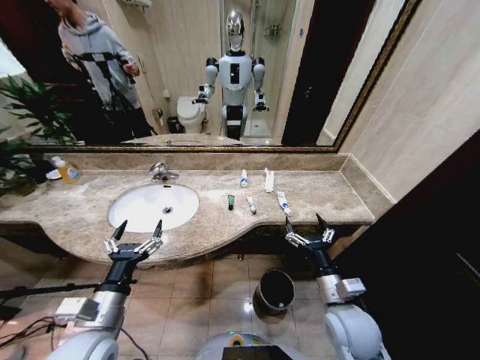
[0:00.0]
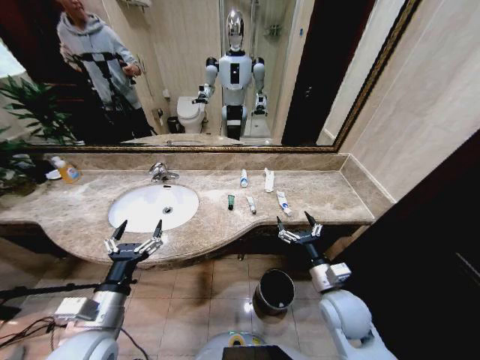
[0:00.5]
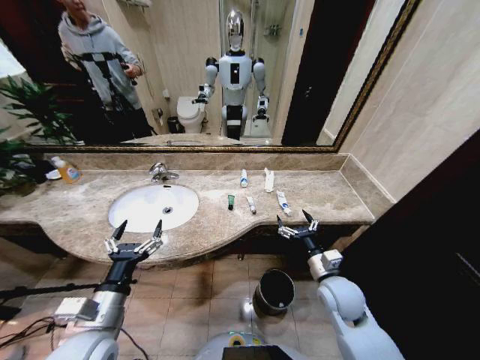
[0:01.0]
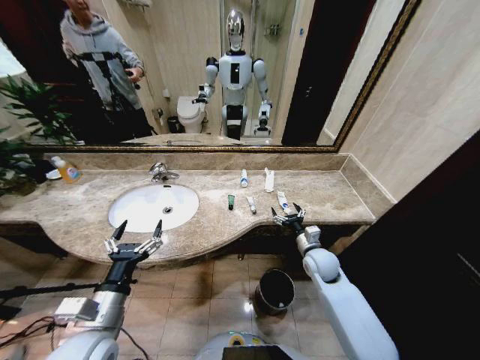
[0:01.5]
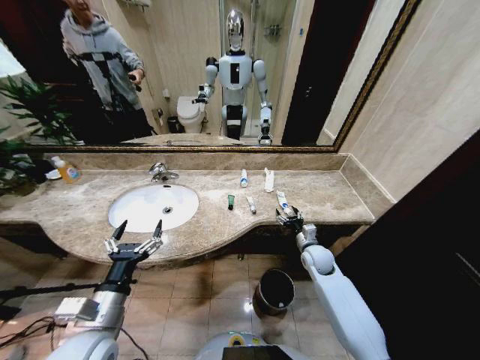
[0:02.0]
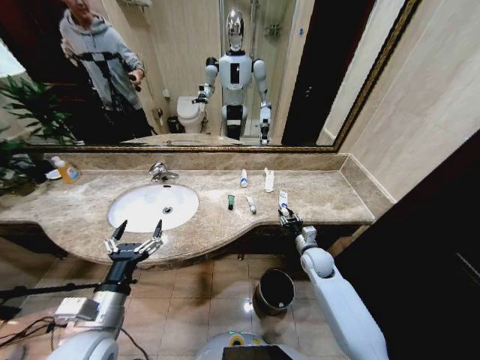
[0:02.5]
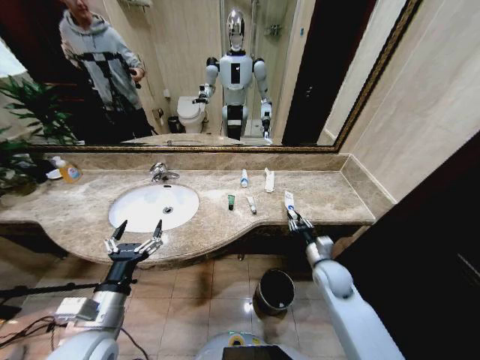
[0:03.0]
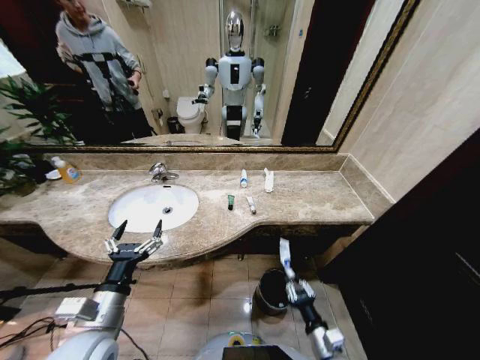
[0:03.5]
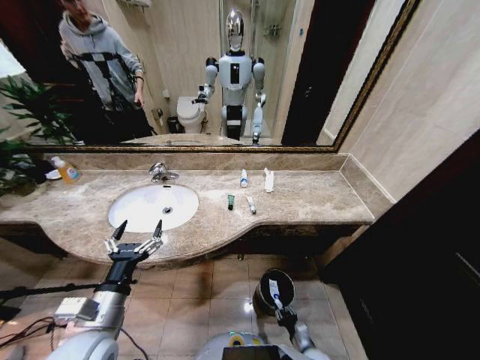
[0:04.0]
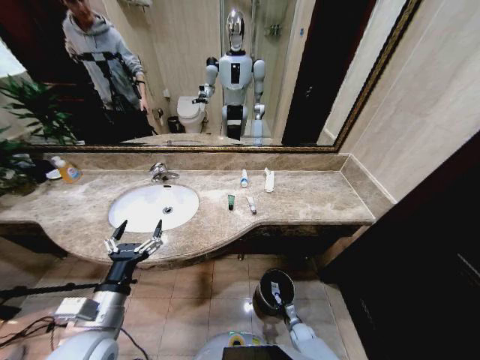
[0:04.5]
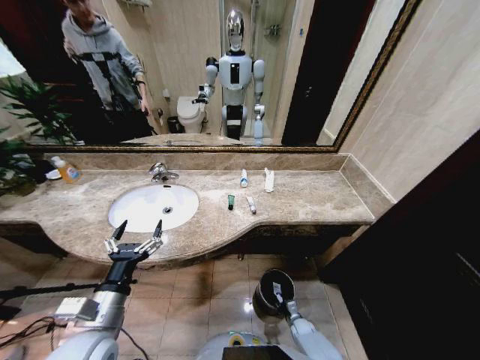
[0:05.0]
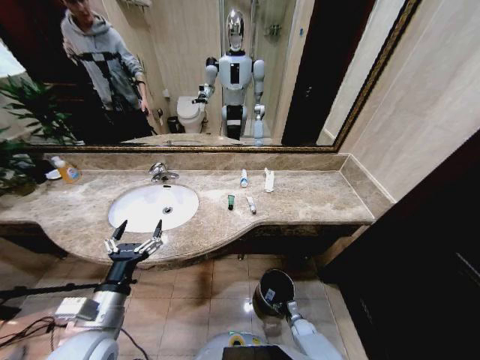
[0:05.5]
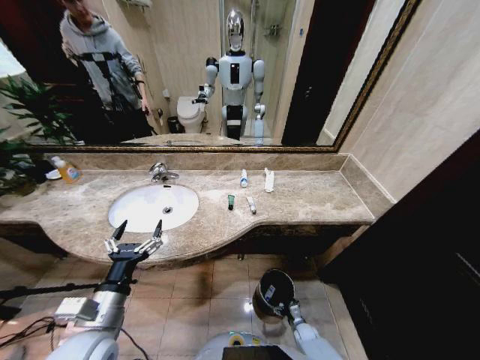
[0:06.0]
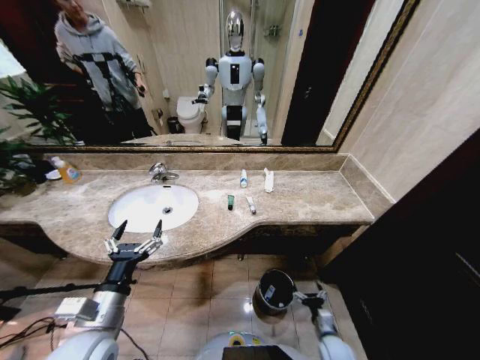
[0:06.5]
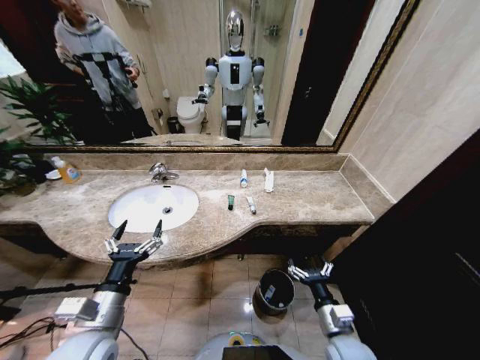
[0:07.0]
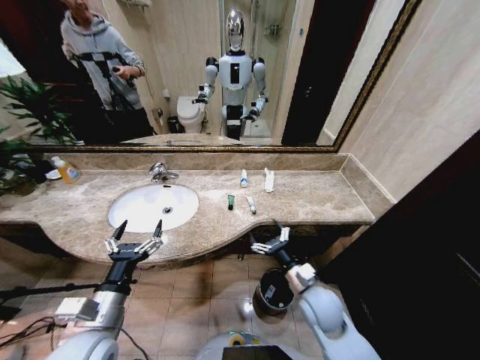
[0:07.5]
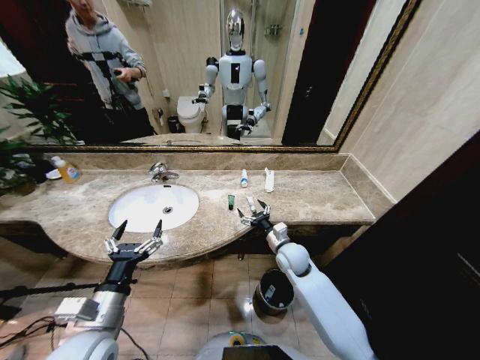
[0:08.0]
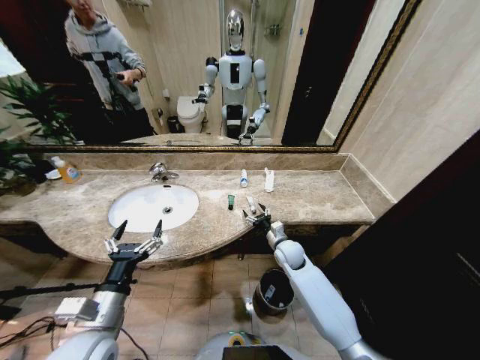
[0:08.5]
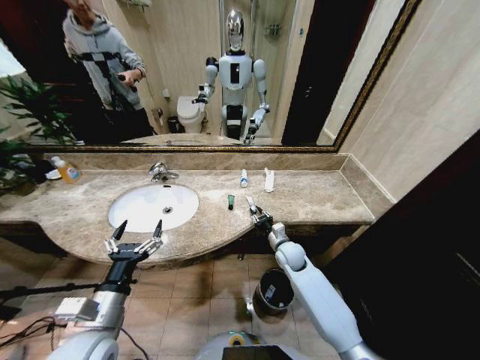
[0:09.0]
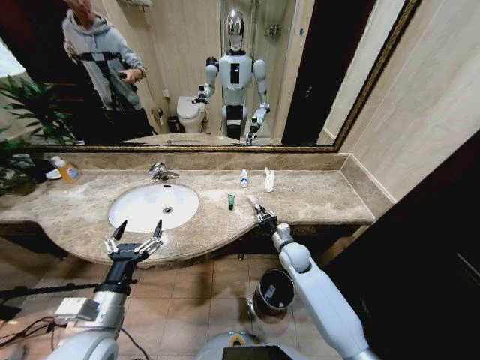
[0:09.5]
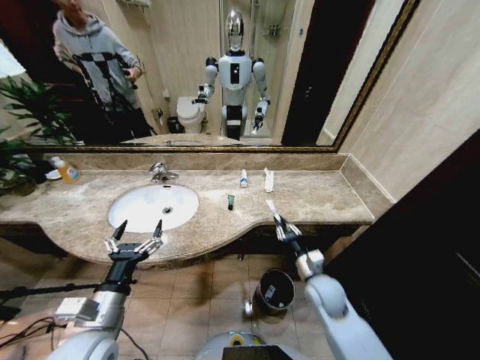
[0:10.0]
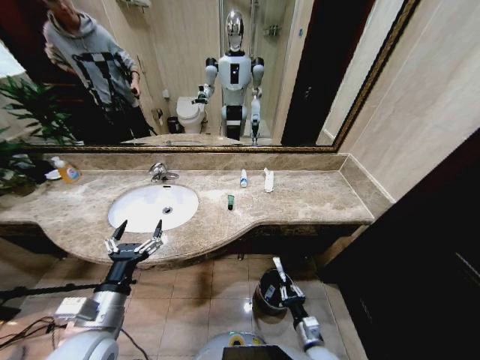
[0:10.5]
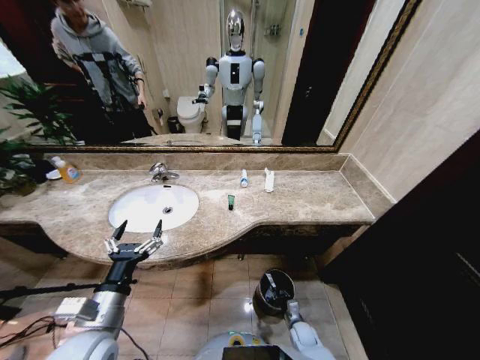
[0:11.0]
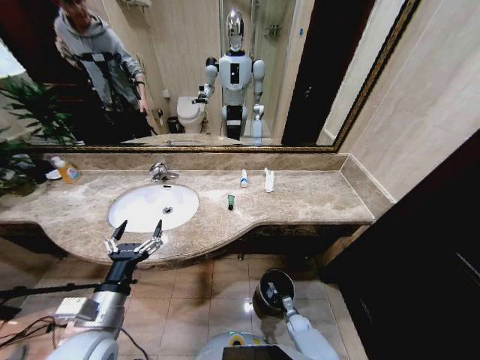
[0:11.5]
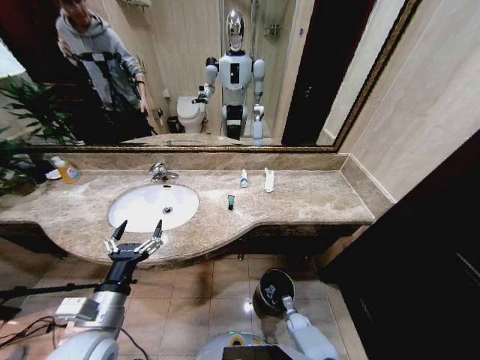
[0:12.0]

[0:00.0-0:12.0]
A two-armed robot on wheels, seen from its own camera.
Task of the whole recording: Pick up the trash from the sink and place it in the trash bin.
0:02.0 to 0:04.0: The right gripper shifts some 35 cm backward and downward, and closes.
0:04.0 to 0:06.0: The right gripper travels downward and forward by approximately 15 cm, and opens up.
0:06.0 to 0:08.0: The right gripper heads upward and forward, covering some 40 cm.
0:08.0 to 0:10.0: The right gripper travels backward and to the right by some 10 cm, and closes its fingers.
0:10.0 to 0:12.0: The right gripper moves downward, some 35 cm.

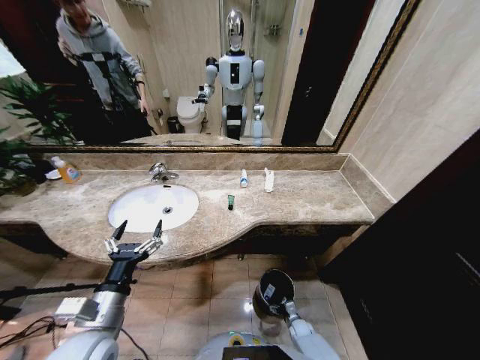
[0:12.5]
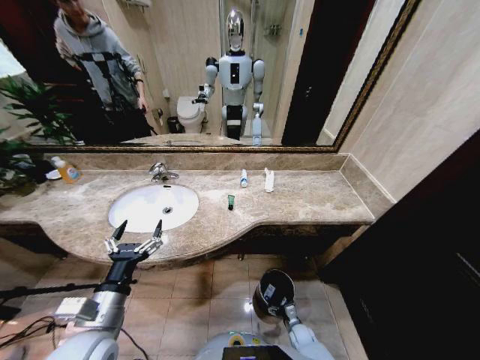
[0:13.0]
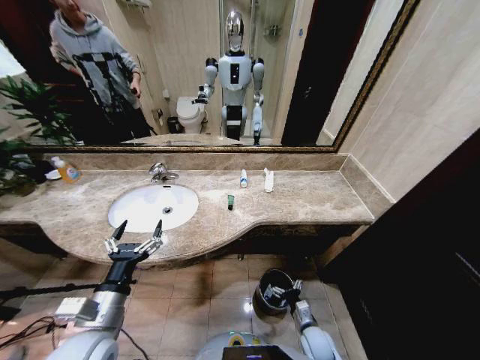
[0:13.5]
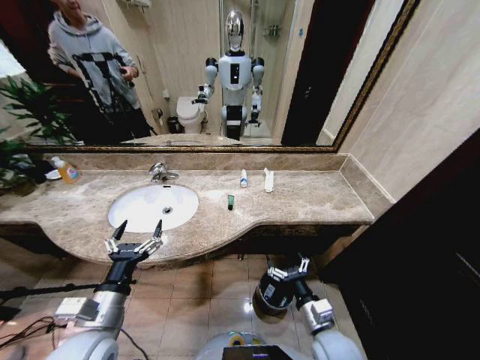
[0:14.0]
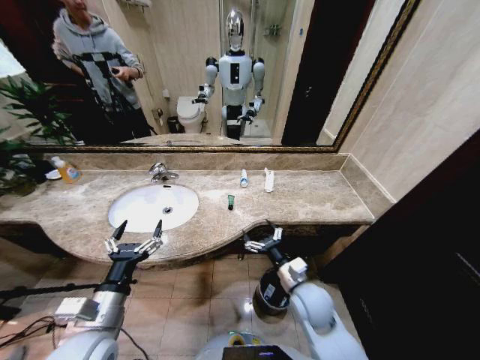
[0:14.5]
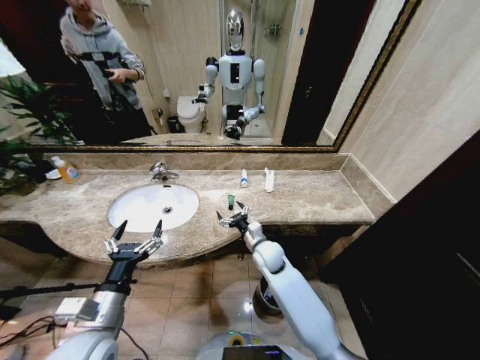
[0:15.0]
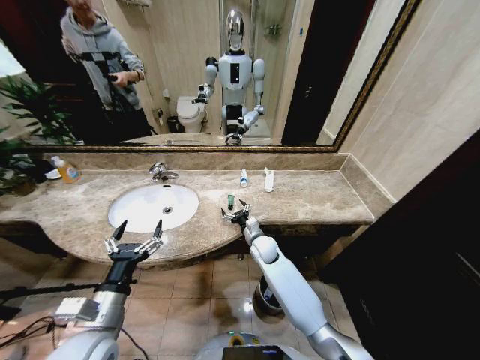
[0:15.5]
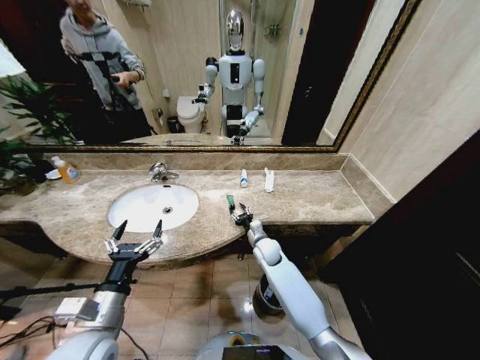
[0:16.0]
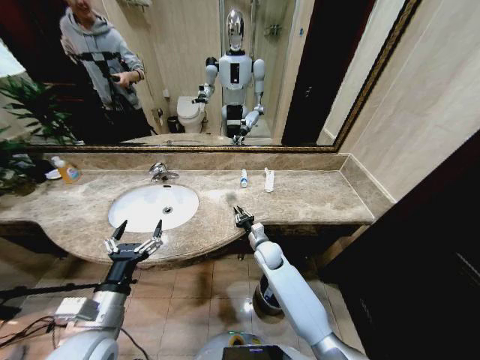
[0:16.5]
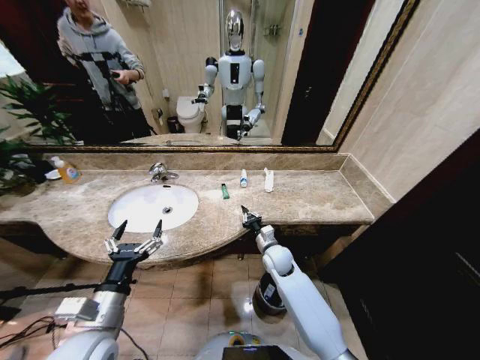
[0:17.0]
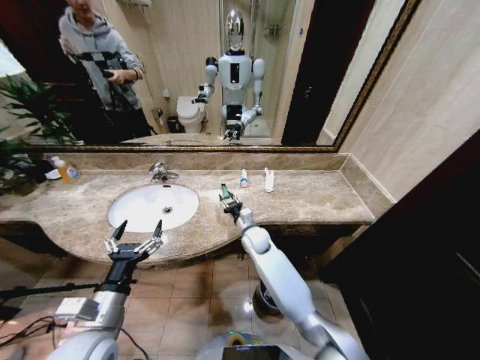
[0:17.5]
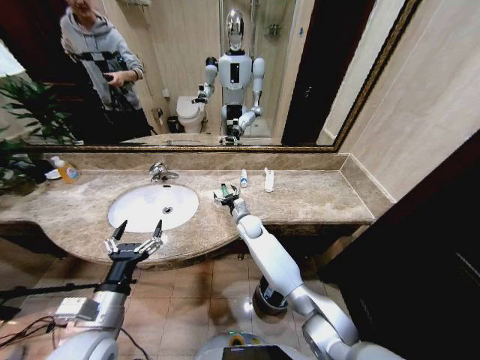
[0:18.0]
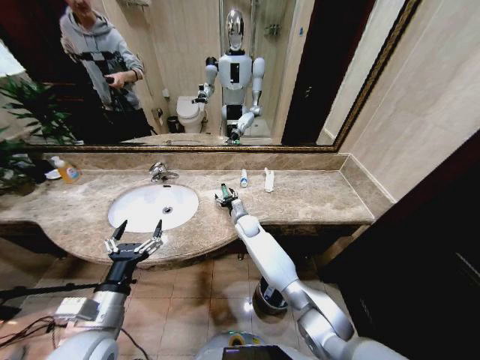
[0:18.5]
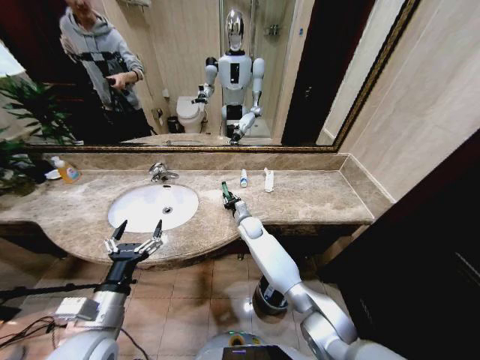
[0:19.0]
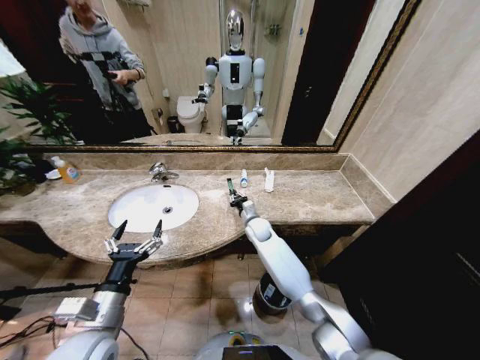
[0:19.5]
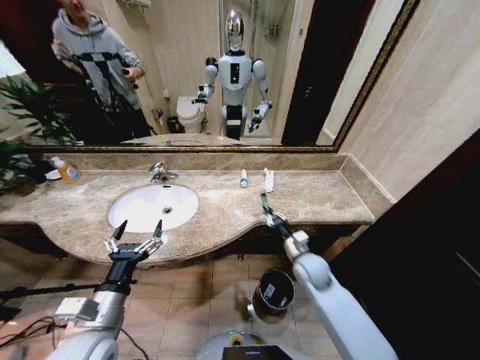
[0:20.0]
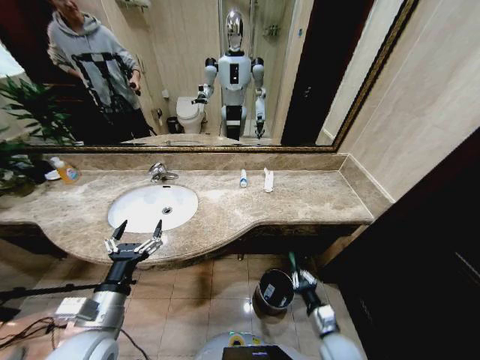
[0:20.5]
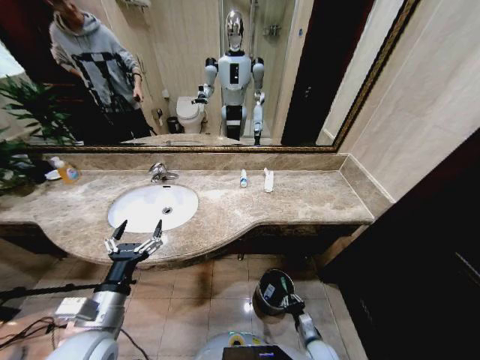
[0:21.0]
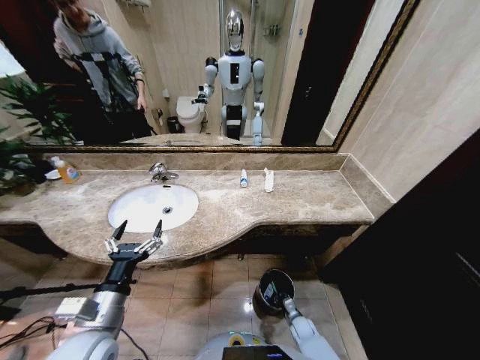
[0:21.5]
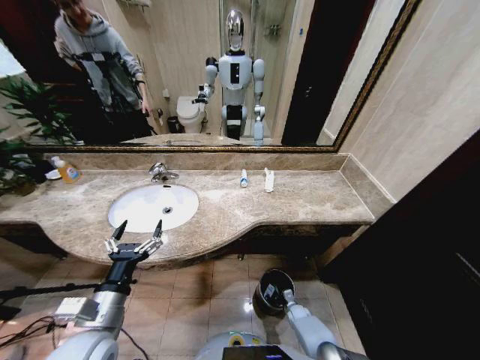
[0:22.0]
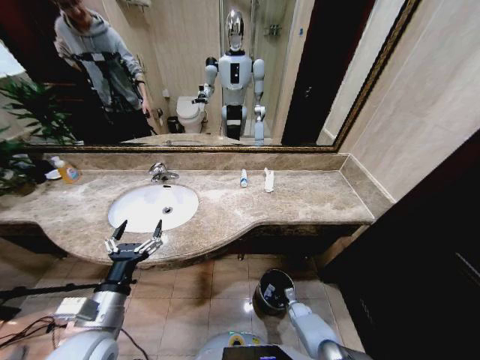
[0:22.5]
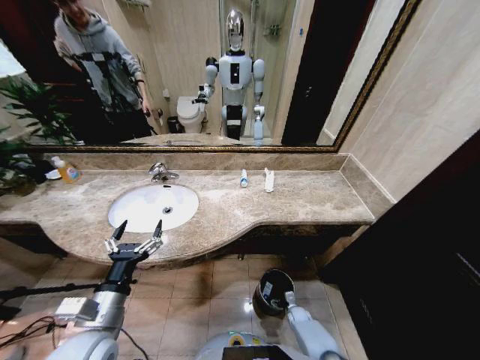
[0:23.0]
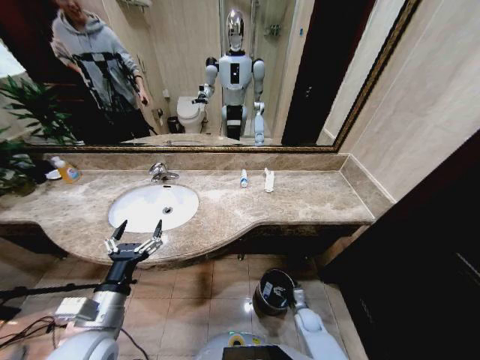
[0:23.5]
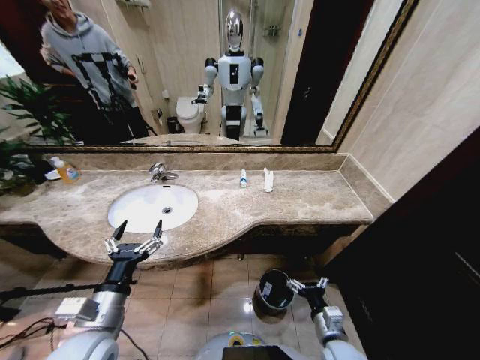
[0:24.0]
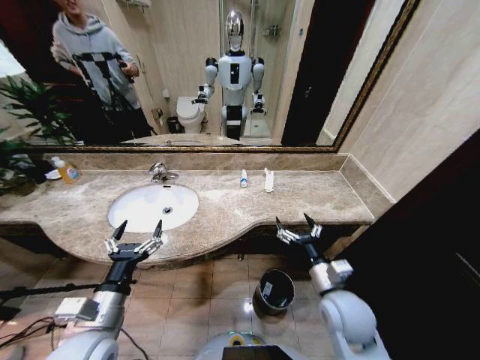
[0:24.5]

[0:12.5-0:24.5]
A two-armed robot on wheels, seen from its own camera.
Task of the whole recording: Pick up the trash from the sink and place it in the trash bin.
0:12.5 to 0:14.5: The right gripper is displaced upward by about 40 cm.
0:14.5 to 0:16.5: The right gripper moves forward and downward, about 20 cm, and closes.
0:16.5 to 0:18.5: The right gripper shifts about 15 cm forward and to the left, and opens.
0:18.5 to 0:20.5: The right gripper heads backward and to the right, covering approximately 40 cm, and closes.
0:20.5 to 0:22.5: The right gripper moves downward and forward, roughly 30 cm.
0:22.5 to 0:24.5: The right gripper travels upward by roughly 40 cm, and opens.

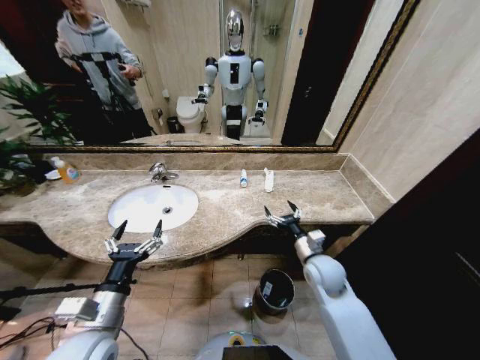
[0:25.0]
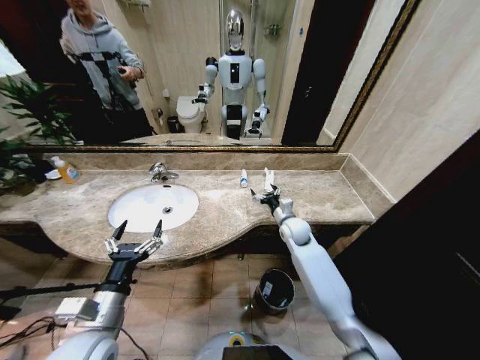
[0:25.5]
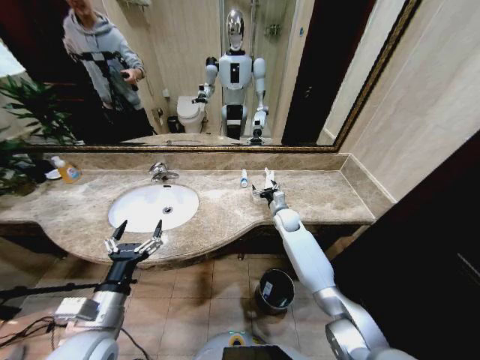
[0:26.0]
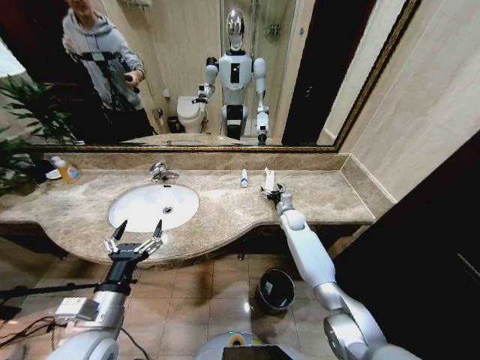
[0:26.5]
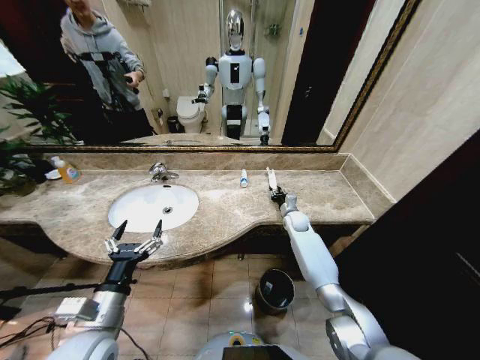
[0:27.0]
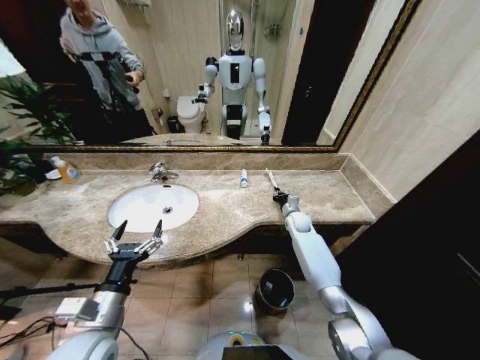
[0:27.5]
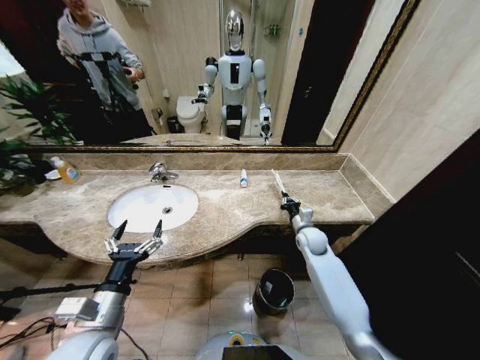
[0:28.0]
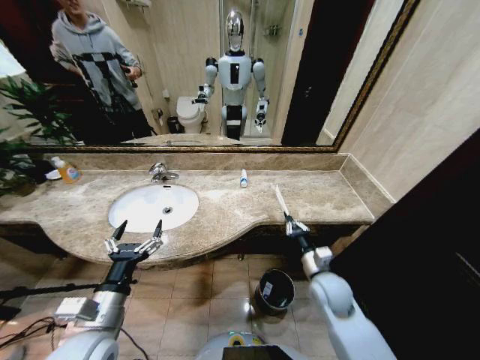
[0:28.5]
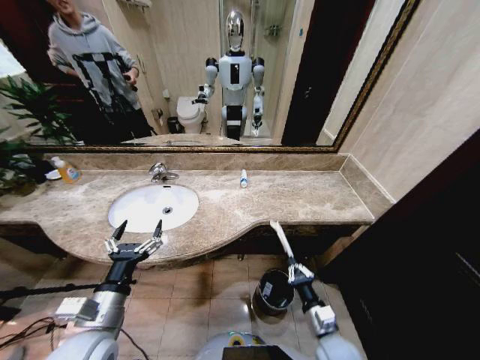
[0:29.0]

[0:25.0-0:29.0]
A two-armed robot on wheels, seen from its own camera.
Task of the whole recording: Pick up the trash from the sink and place it in the trash bin.
0:25.0 to 0:27.0: The right gripper goes approximately 25 cm forward, and closes its fingers.
0:27.0 to 0:29.0: The right gripper heads backward, covering about 40 cm, and closes its fingers.
